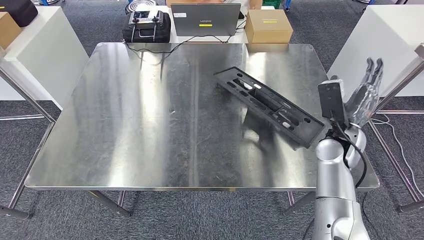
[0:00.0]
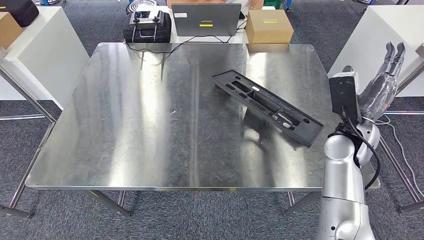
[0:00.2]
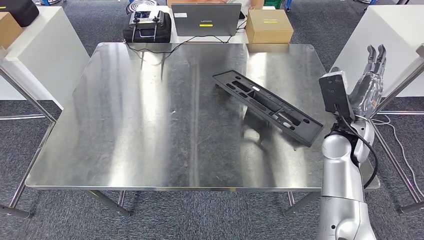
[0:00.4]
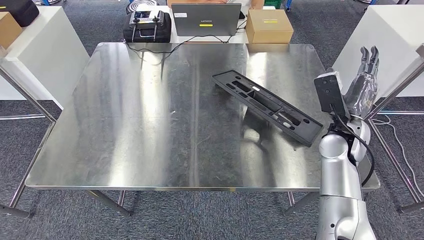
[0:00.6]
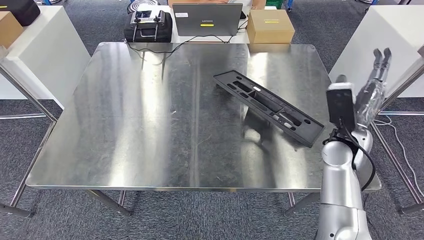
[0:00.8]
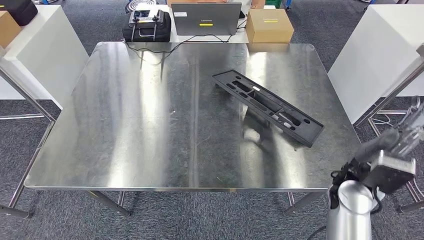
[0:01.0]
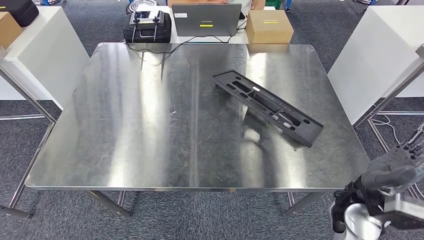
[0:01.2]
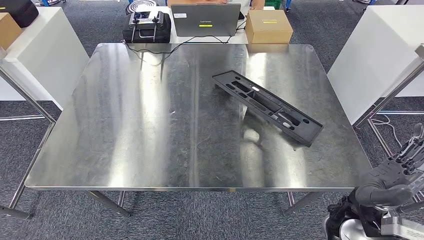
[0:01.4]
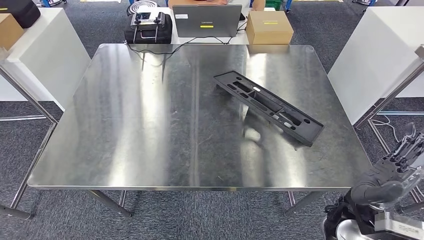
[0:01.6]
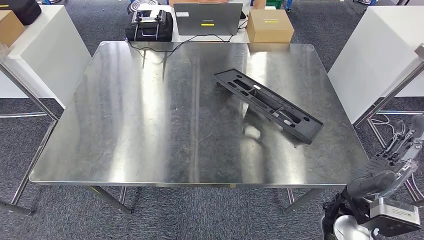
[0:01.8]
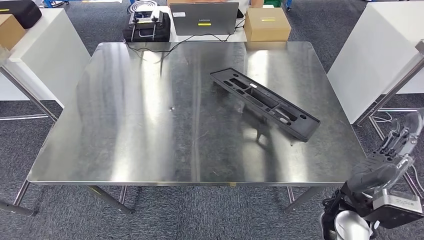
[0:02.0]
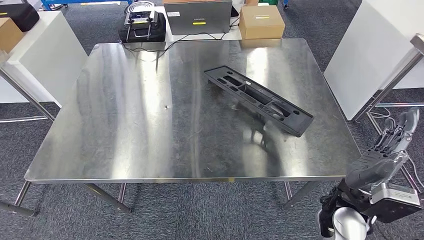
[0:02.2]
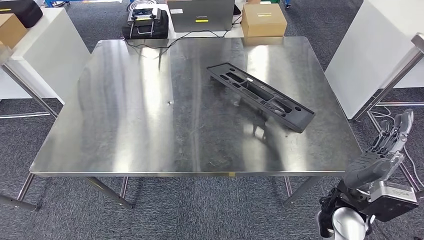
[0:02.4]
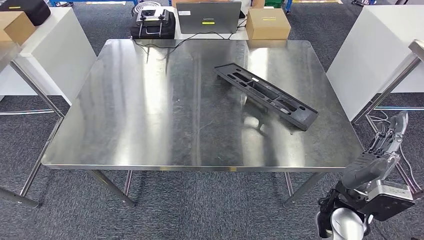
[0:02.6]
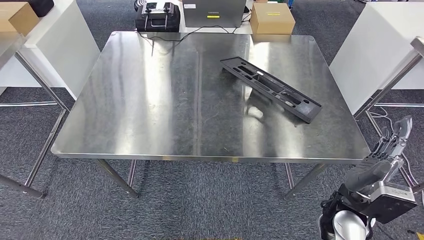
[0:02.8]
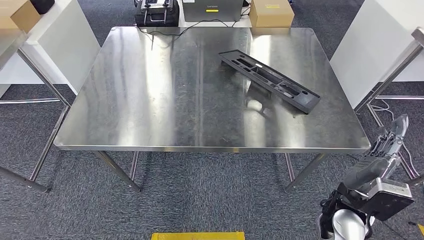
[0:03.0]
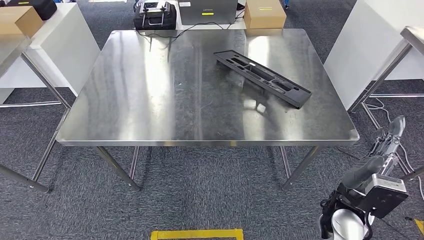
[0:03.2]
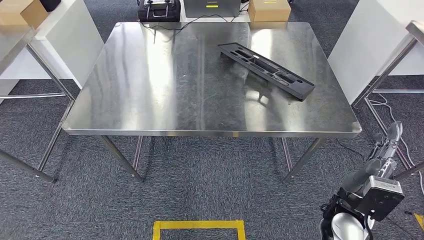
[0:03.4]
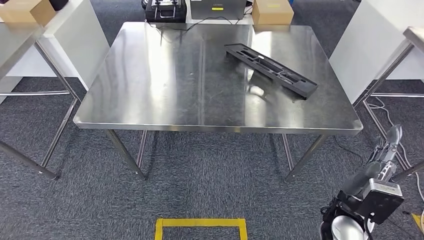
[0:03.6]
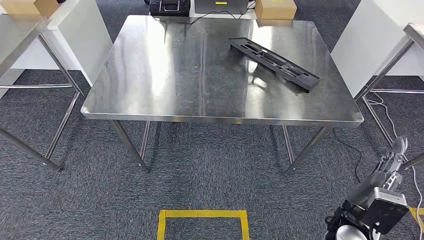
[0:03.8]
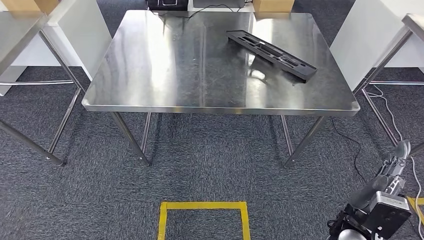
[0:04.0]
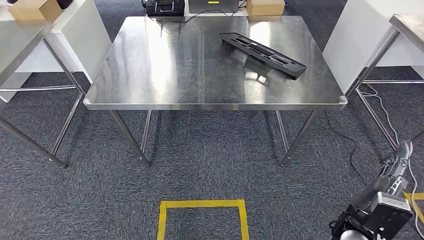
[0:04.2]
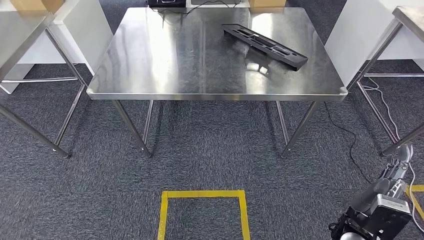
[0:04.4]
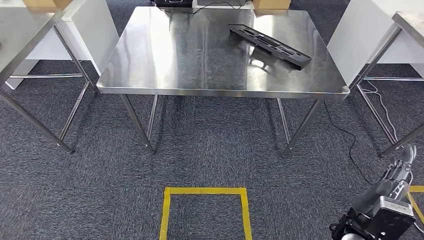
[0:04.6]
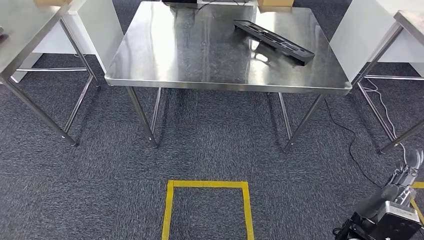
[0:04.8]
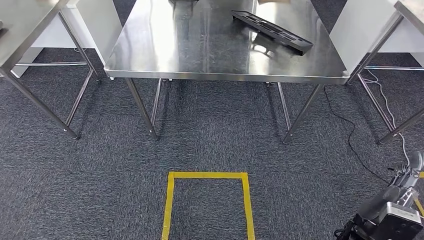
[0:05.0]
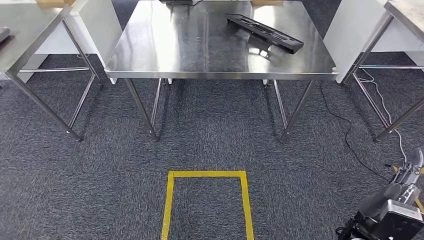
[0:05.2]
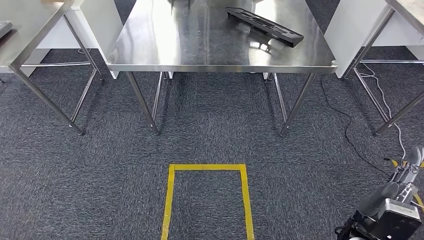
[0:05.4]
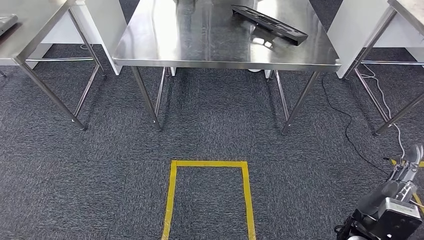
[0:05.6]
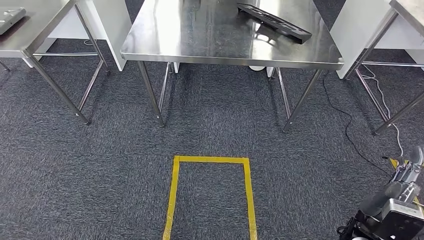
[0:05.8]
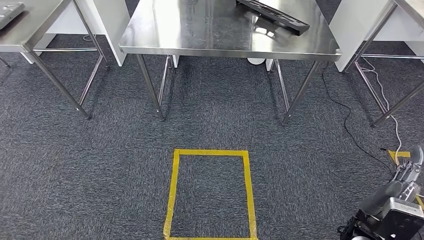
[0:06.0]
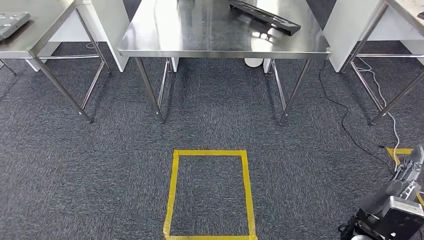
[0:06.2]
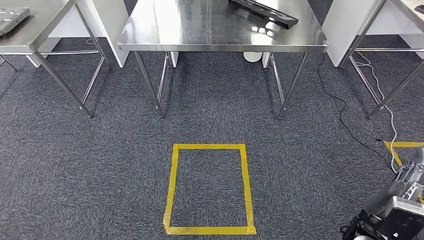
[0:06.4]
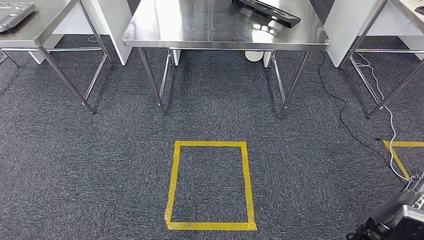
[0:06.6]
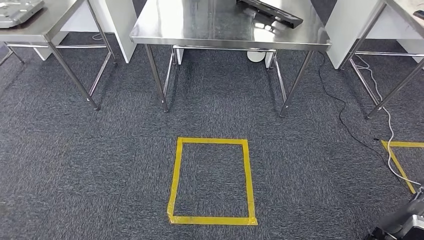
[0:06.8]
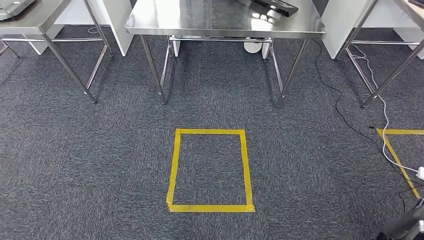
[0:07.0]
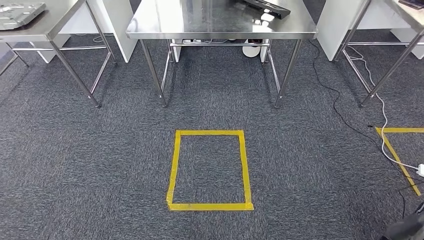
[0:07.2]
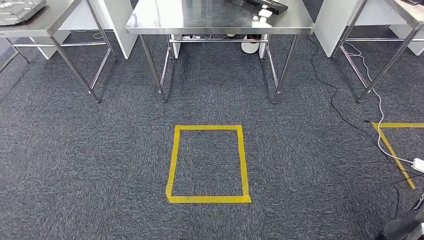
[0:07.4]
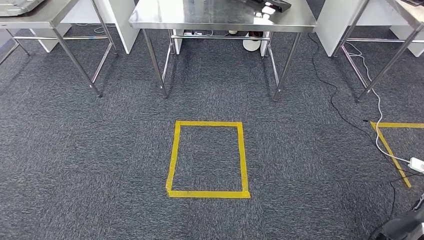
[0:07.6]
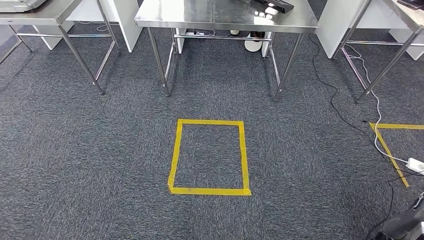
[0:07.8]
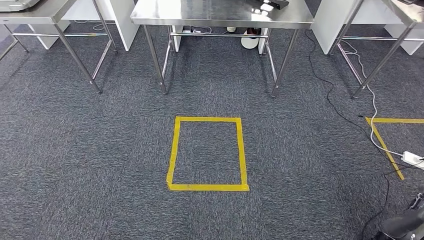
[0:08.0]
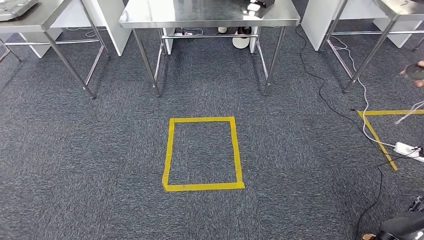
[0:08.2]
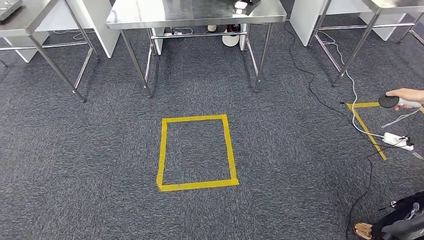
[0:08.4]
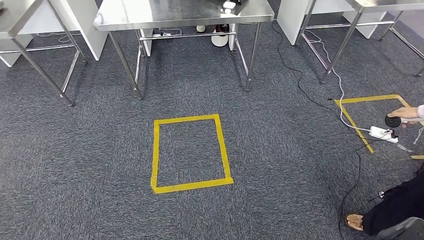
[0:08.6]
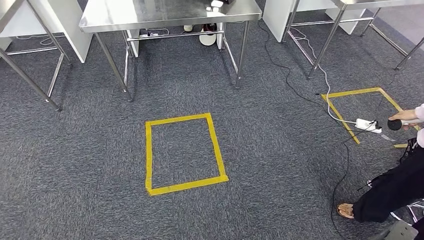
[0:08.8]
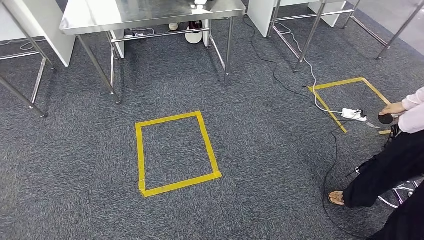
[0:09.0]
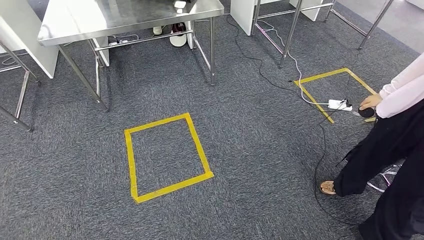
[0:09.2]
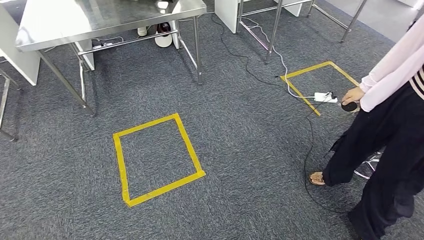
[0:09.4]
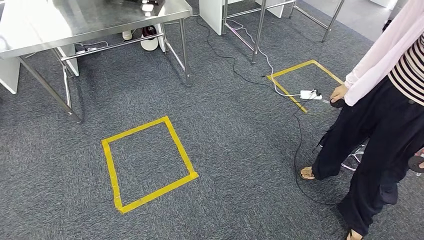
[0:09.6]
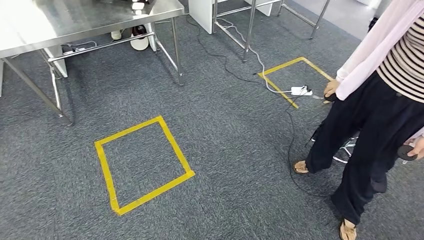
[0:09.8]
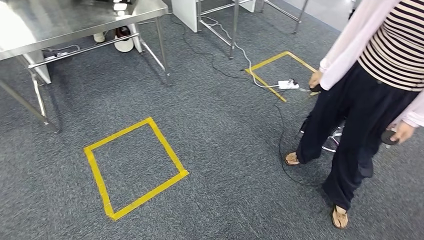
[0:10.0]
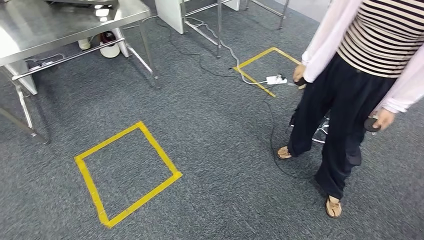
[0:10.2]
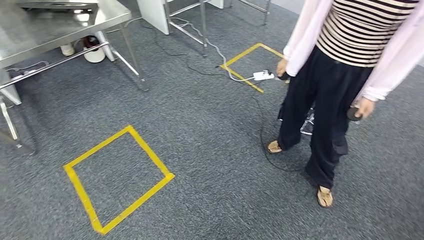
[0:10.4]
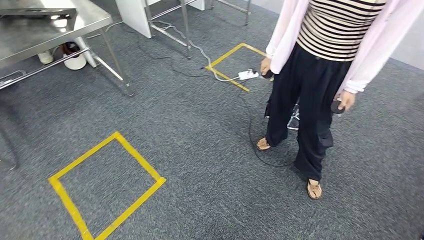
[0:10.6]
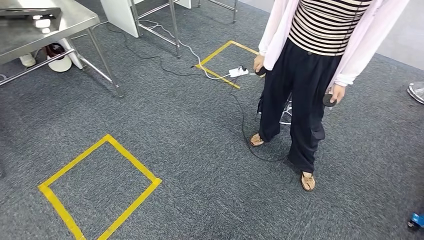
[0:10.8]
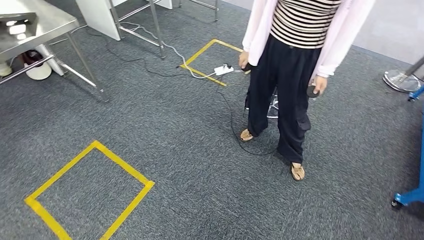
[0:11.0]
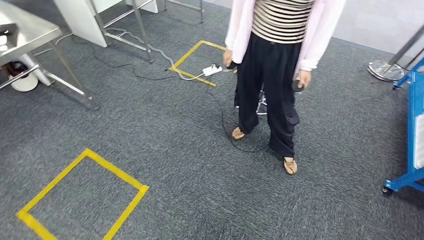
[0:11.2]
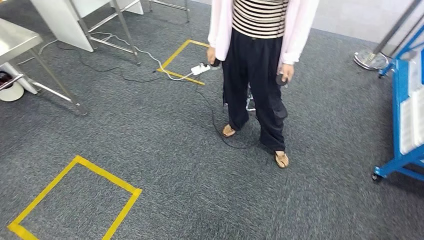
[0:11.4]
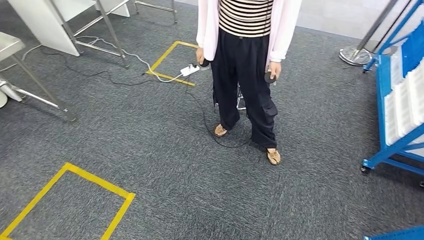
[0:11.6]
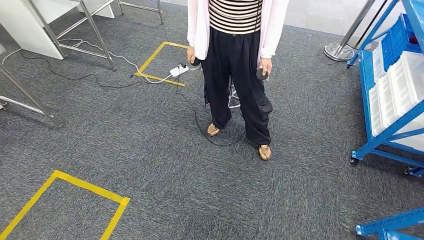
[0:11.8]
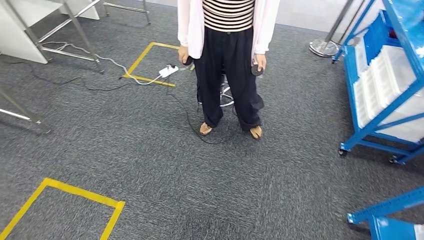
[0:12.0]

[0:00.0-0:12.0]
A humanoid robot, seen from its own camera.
Step, 0:00.0 to 0:04.8: Insert the large material into the corresponding slot on the workbench.
0:00.0 to 0:01.6: The right hand is displaced backward by about 15 cm.

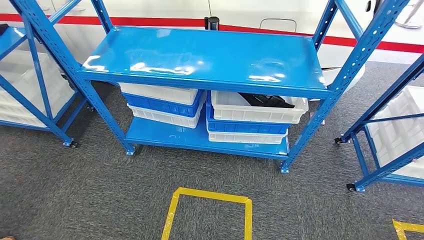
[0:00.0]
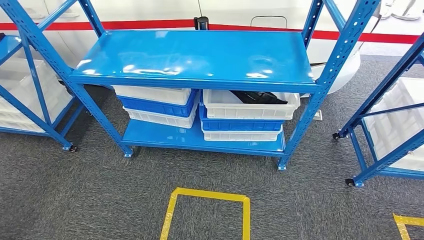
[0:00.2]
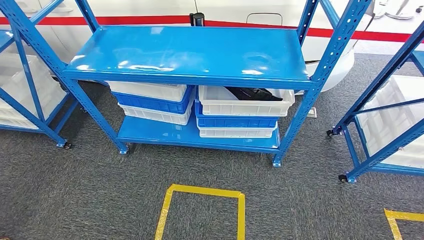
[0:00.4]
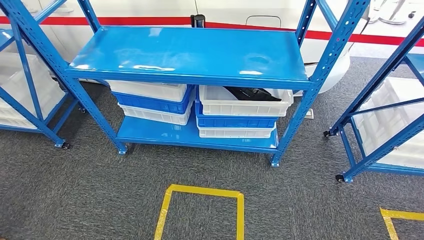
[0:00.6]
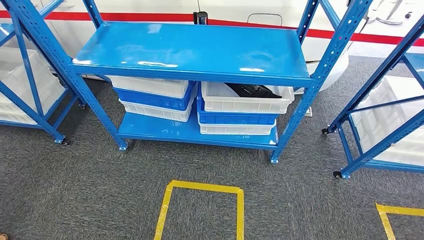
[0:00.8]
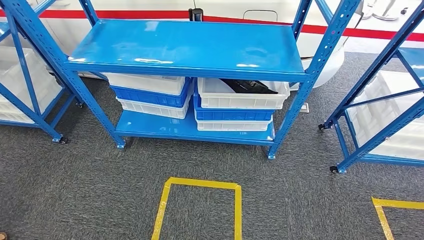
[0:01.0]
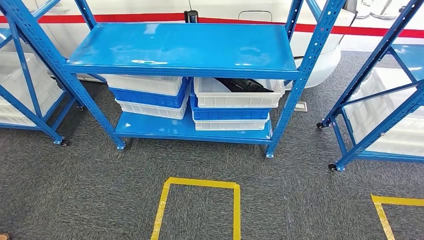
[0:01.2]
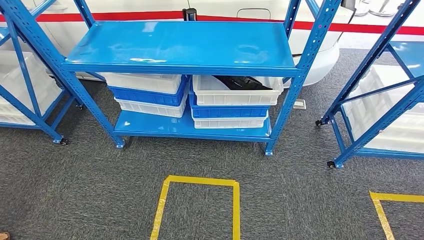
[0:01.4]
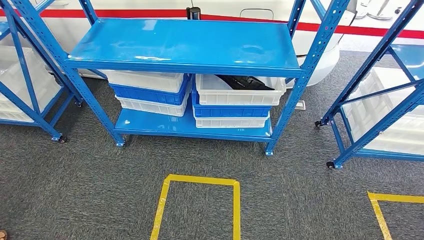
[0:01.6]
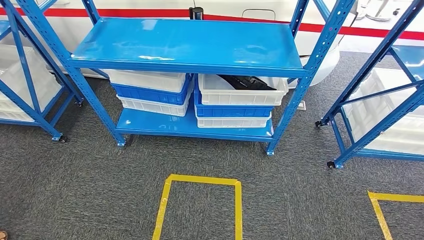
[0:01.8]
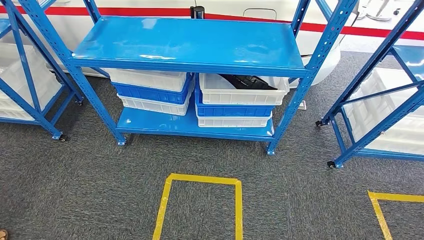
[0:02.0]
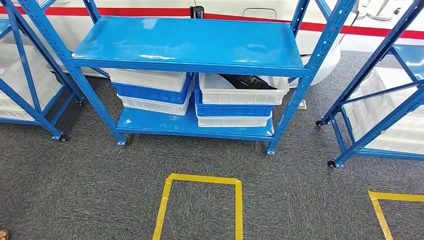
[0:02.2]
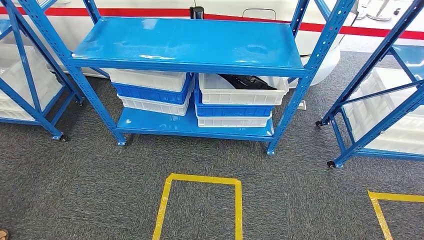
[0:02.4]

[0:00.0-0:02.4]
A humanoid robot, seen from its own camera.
Step, 0:00.0 to 0:02.4: Move to the initial position of the shelf.
